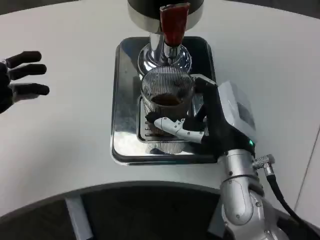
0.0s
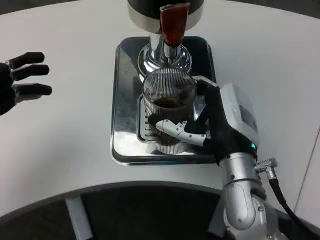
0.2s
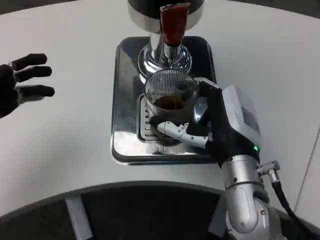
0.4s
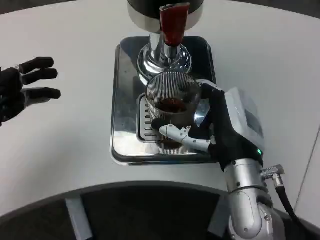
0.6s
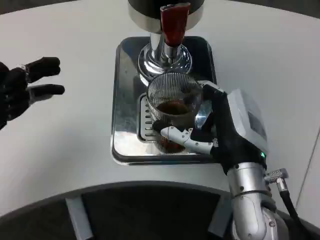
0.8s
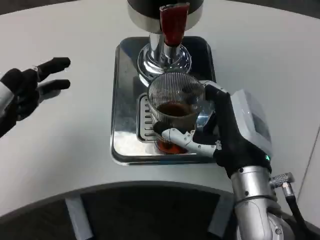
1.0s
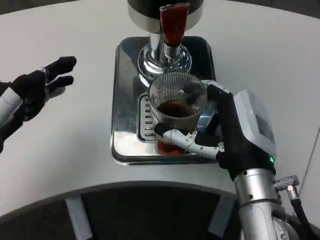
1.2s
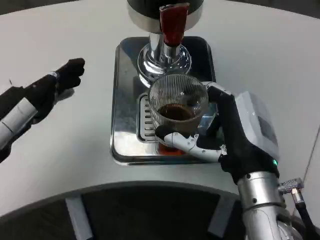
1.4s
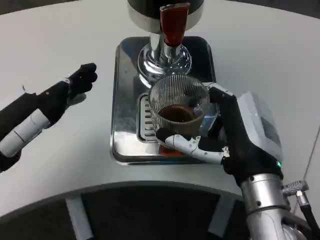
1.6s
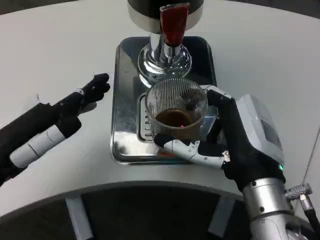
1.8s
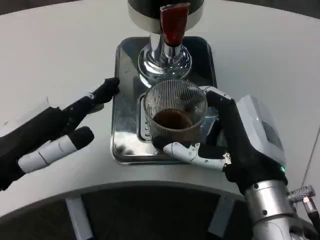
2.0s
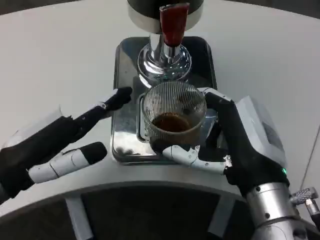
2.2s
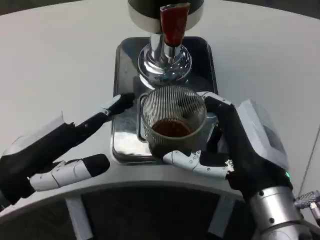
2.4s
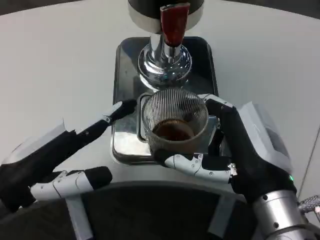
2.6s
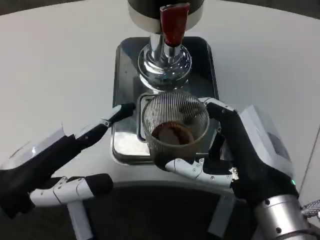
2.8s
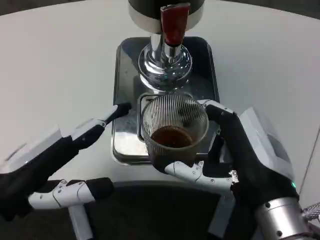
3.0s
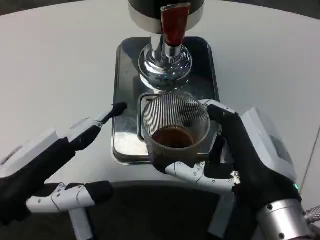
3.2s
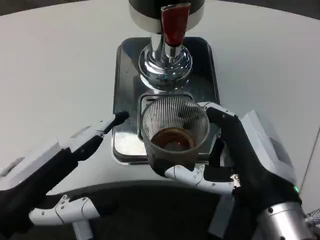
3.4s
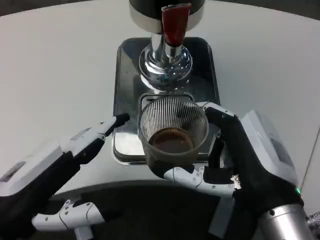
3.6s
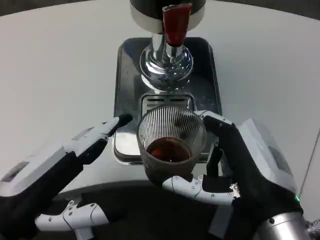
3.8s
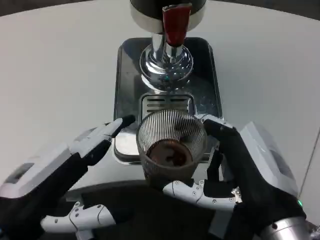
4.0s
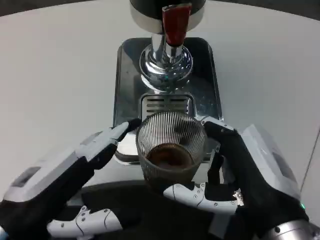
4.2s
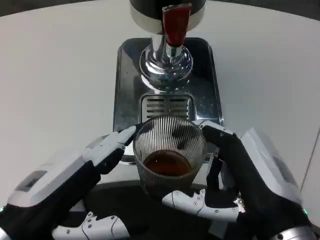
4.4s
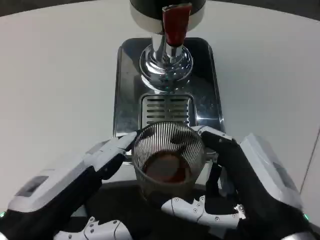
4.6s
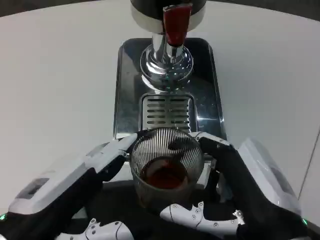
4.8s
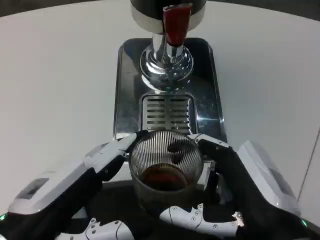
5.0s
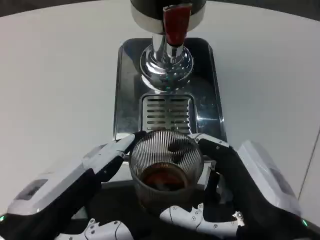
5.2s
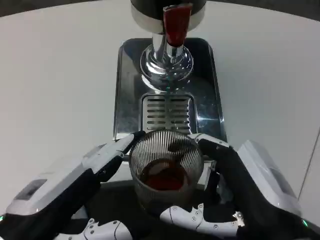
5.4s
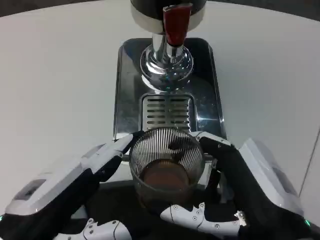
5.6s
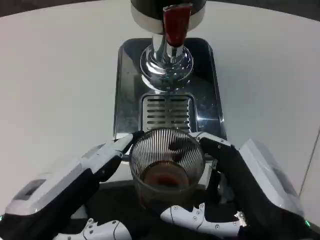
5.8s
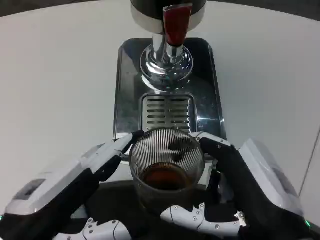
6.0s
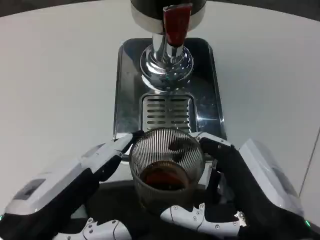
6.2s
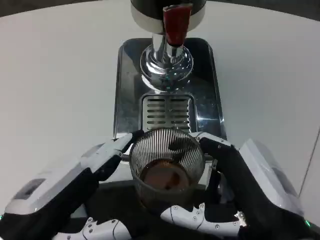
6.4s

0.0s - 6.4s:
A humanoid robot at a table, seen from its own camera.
Task of the whole recording: Grasp the cup under the faucet to collect the drink, then remove the cup.
0.0s - 1.6s: The left hand is displaced to the right by about 5 cm, while the right hand shifts about 5 cm backward.
1.6s - 3.2s: The left hand shifts by roughly 5 cm.
3.2s - 4.8s: The left hand ends up approximately 5 cm from where it was.
4.8s - 6.4s: Both hands stay about where they are.

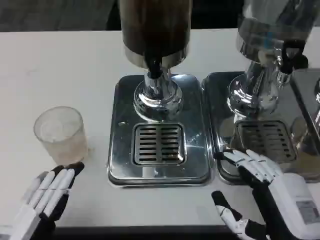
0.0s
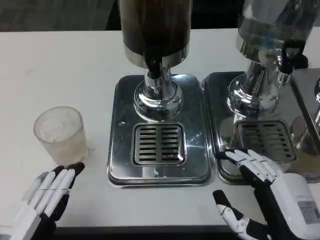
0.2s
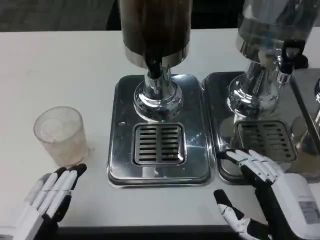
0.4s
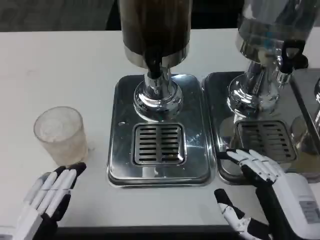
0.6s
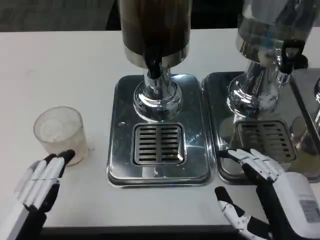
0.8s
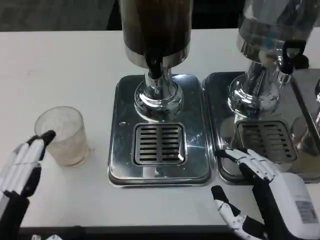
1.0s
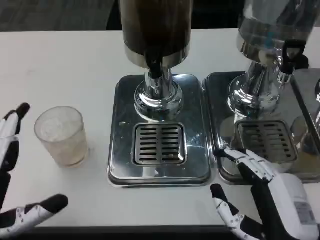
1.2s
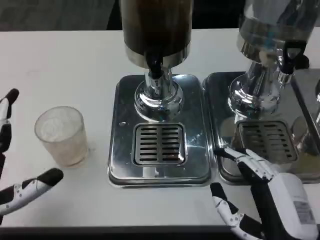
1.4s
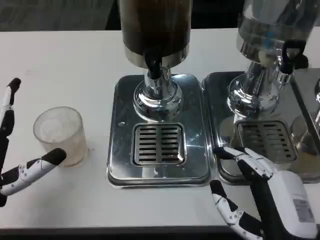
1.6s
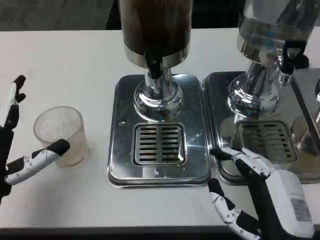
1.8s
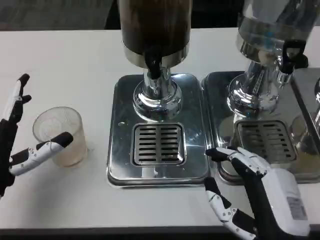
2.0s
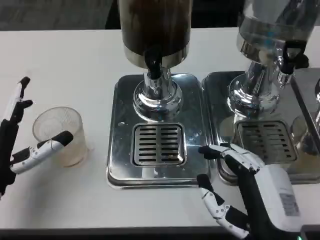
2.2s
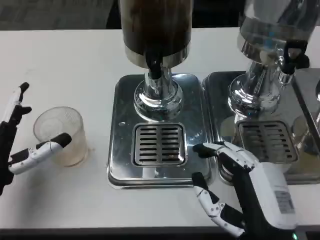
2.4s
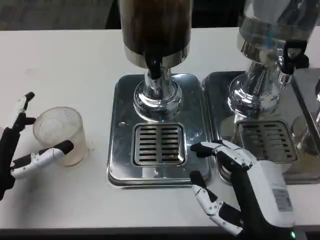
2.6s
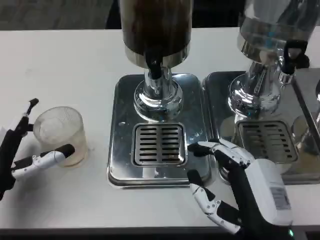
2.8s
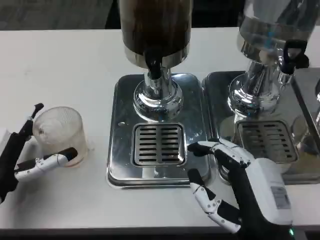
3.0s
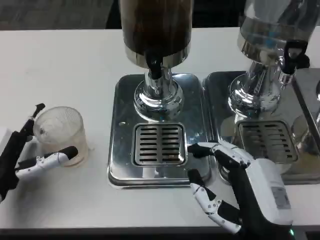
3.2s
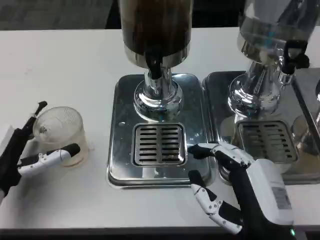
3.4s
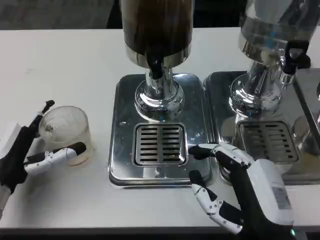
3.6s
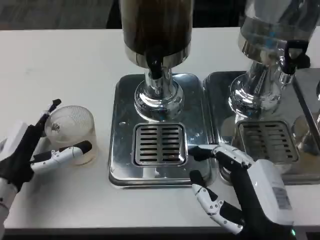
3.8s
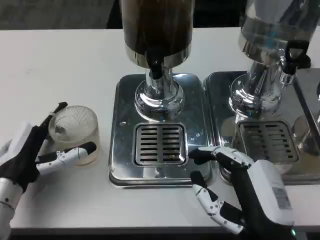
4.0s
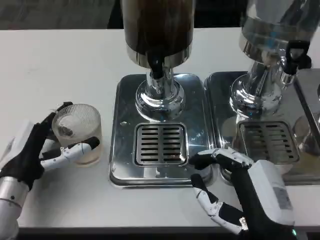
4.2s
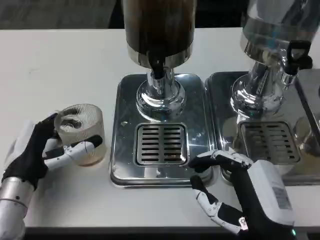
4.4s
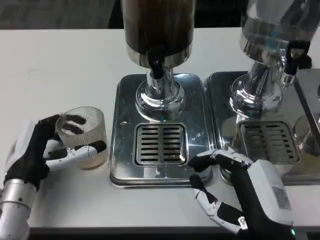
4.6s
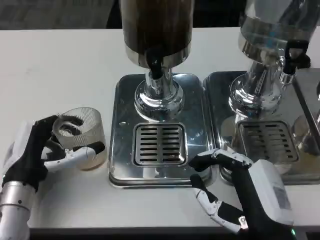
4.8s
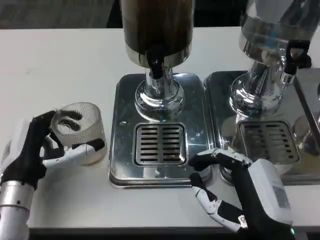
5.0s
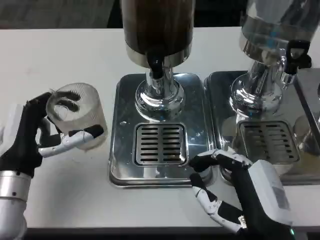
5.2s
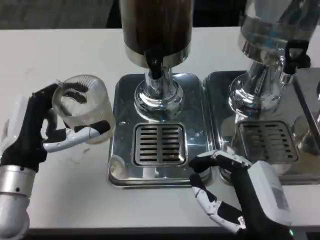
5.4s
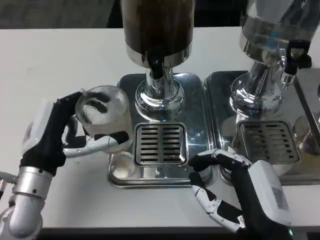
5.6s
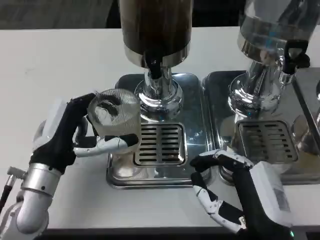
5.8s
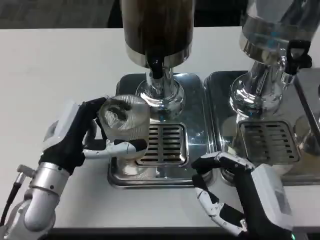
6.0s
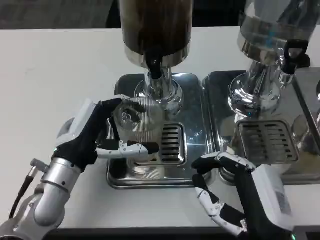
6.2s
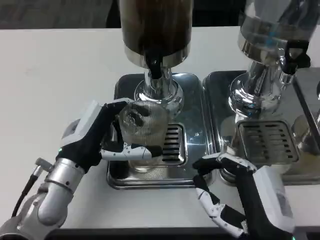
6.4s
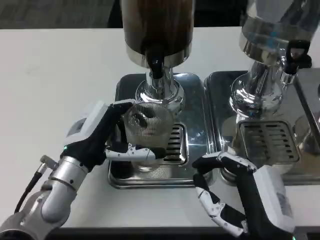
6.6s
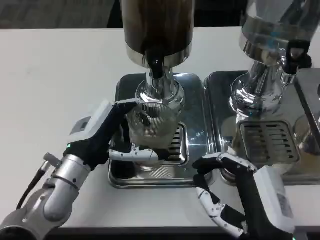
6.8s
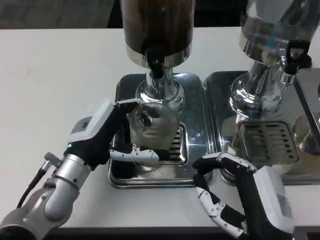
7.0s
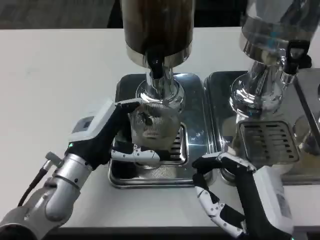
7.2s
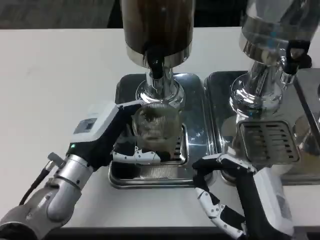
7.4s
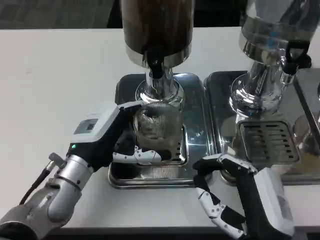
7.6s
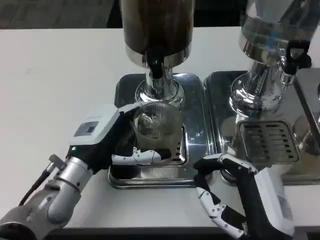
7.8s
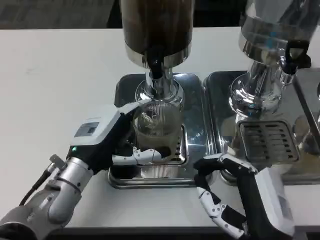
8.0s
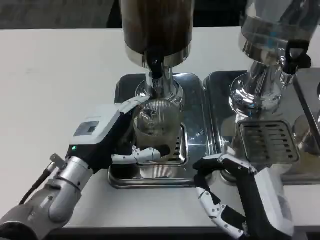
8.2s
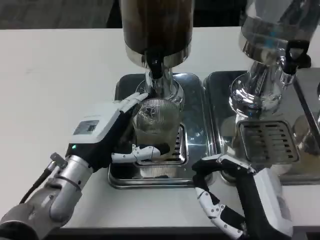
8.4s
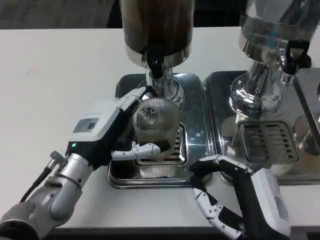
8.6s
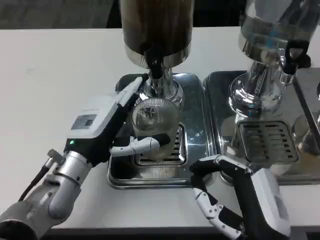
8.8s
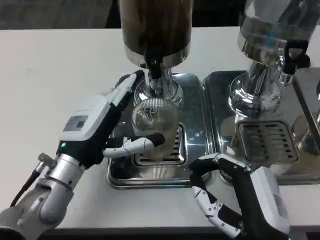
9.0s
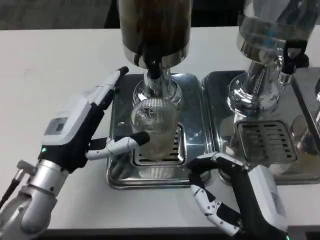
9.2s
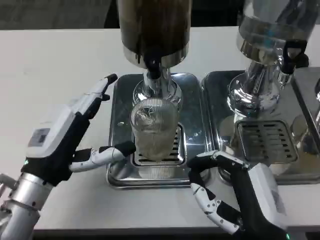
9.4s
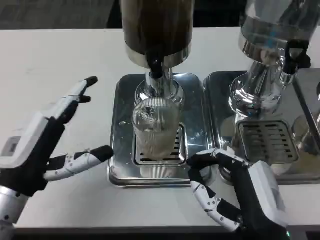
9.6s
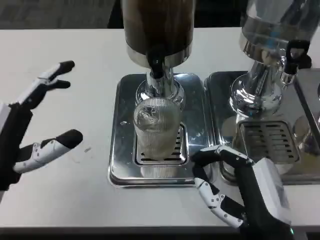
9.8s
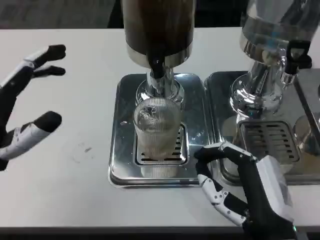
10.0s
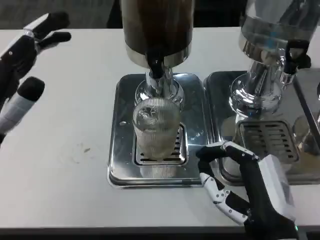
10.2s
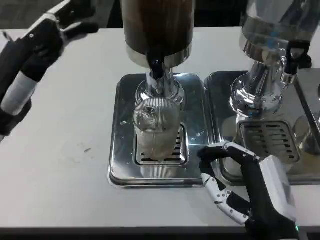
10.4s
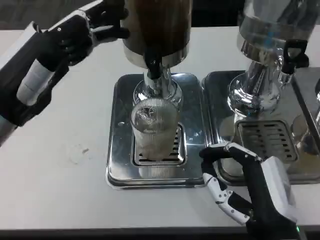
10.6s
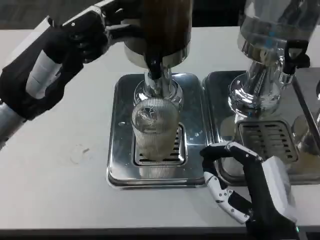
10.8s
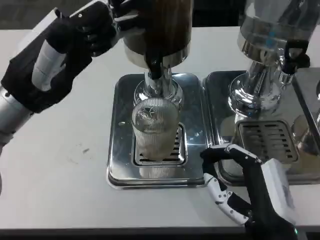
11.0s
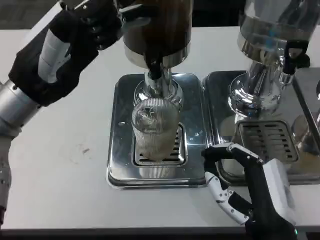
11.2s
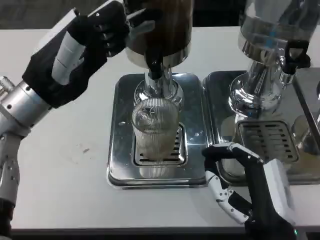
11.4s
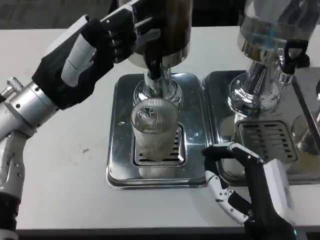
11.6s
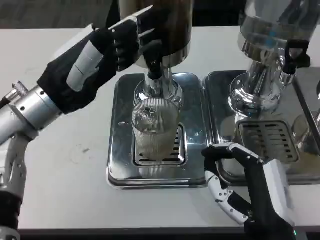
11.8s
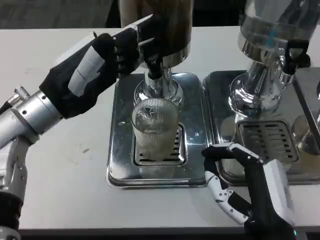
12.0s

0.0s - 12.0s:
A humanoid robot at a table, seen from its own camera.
Task of the whole recording: Grasp the cup under the faucet to collect the drink, then remove the cup.
0.0s - 1.6s: The left hand moves forward, about 10 cm.
3.0s - 4.4s: The left hand moves roughly 5 cm.
4.4s - 6.0s: The left hand moves about 5 cm.
6.0s - 7.6s: There are only small adjustments of the hands.
7.6s - 9.0s: The hands make only small movements.
9.0s - 10.4s: The left hand is displaced upward and to the left by some 15 cm.
10.4s - 12.0s: The left hand shifts some 5 cm forward.

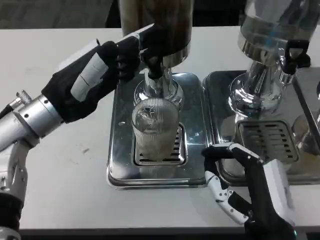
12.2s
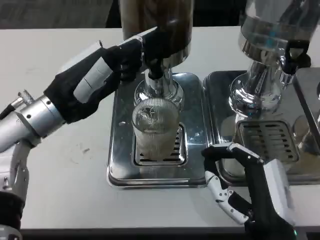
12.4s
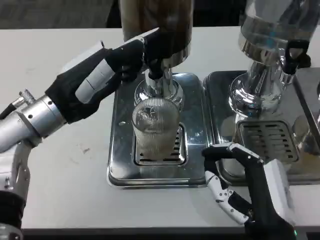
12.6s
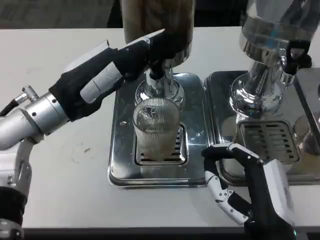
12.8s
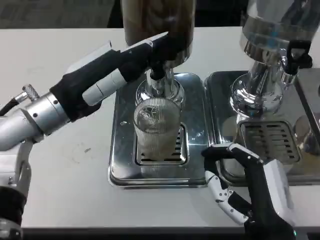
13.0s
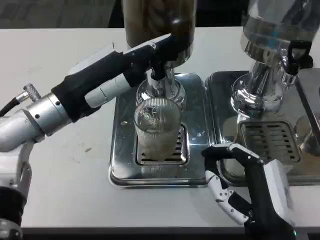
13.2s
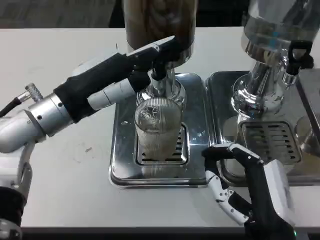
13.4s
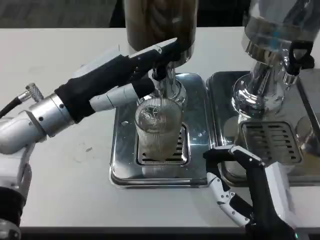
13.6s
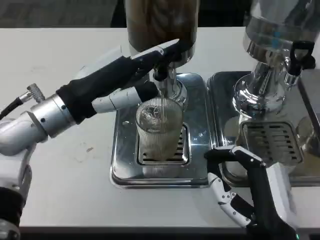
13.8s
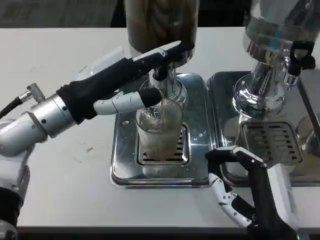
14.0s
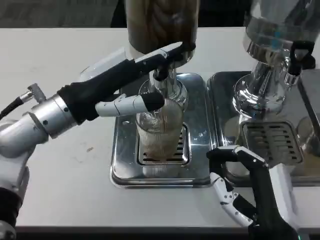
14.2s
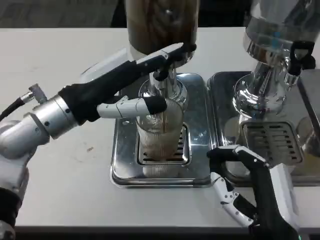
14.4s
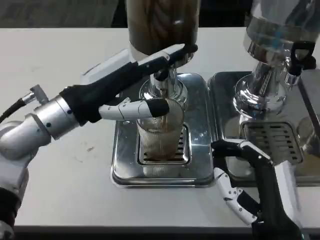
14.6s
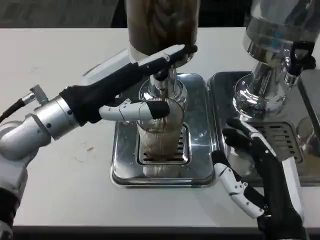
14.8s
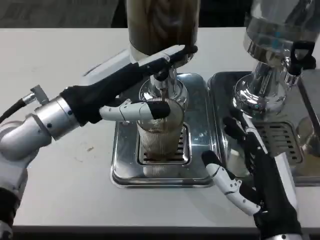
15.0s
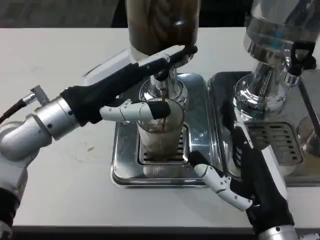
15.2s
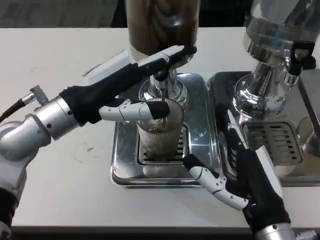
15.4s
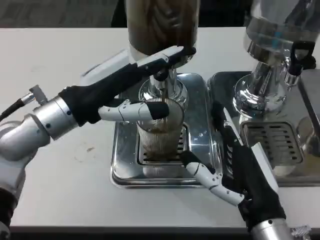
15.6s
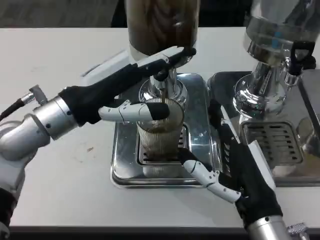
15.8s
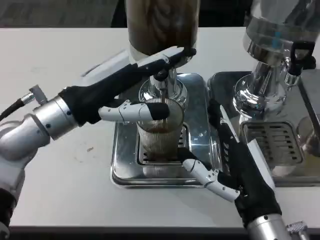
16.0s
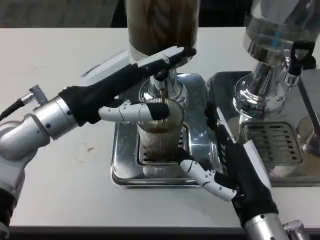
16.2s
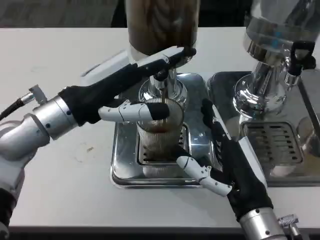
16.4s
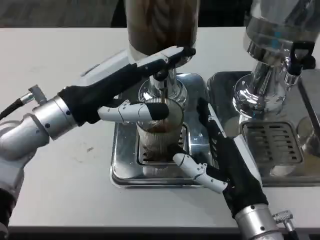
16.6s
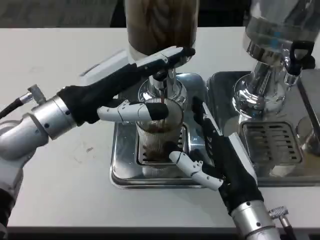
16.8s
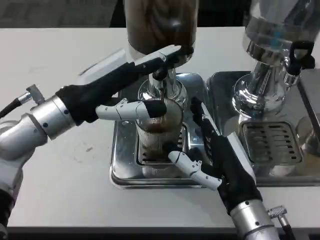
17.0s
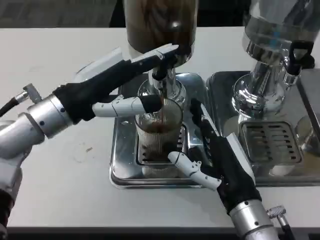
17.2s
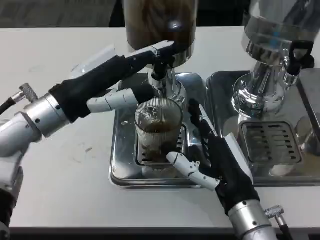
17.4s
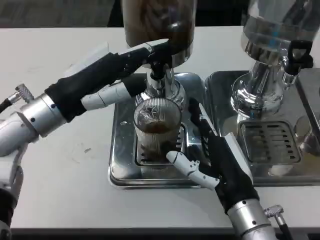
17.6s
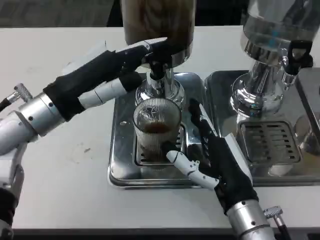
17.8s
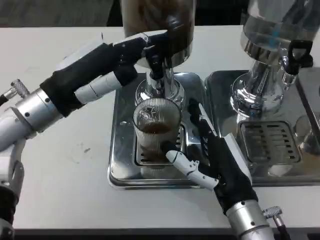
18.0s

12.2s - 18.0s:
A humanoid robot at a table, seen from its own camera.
Task of the whole recording: Grasp the cup under the faucet to collect the drink, then remove the cup.
15.0s - 16.6s: The hands make only small movements.
